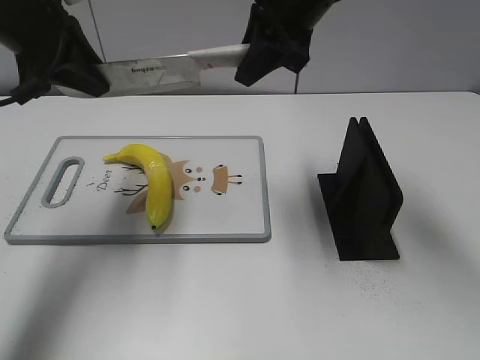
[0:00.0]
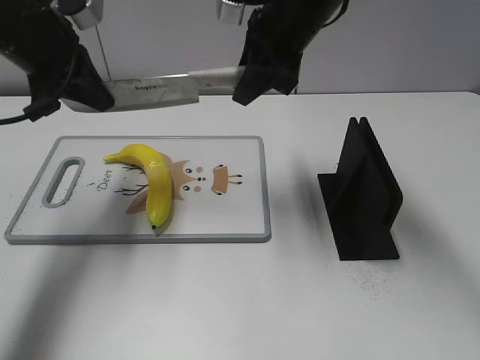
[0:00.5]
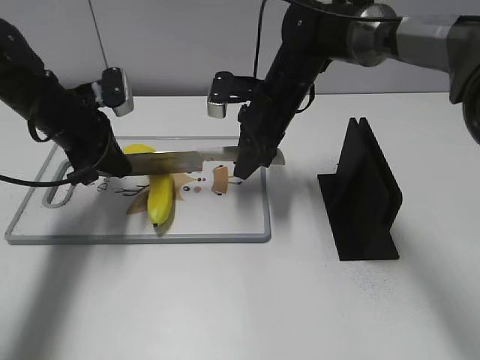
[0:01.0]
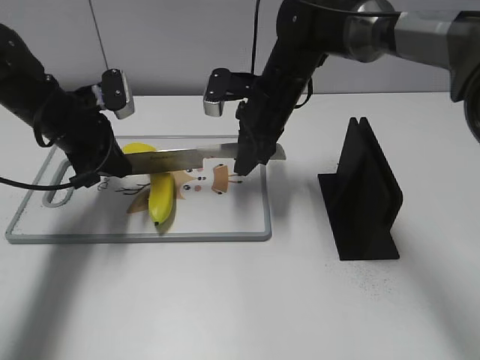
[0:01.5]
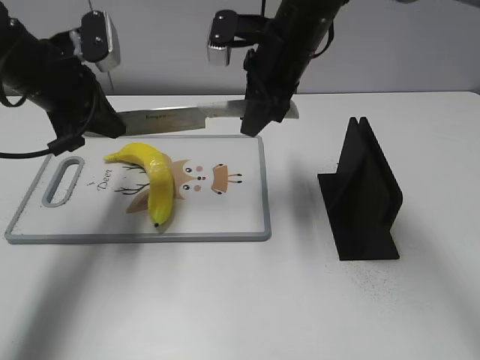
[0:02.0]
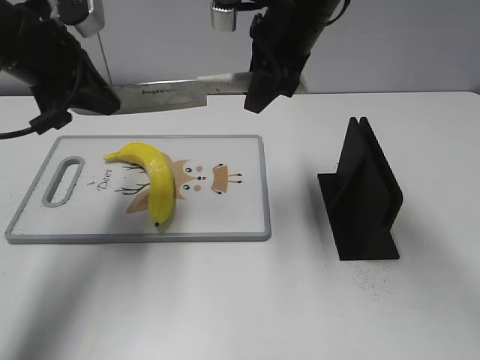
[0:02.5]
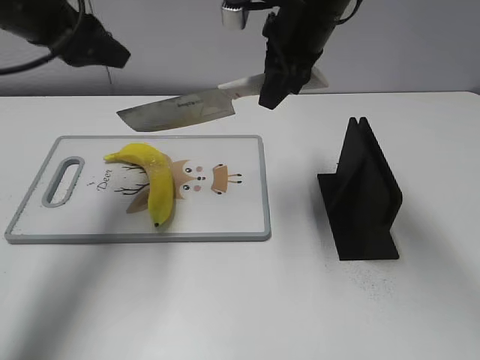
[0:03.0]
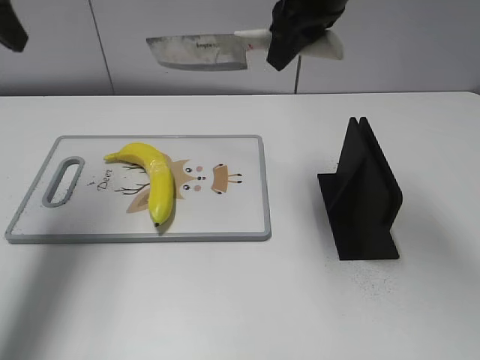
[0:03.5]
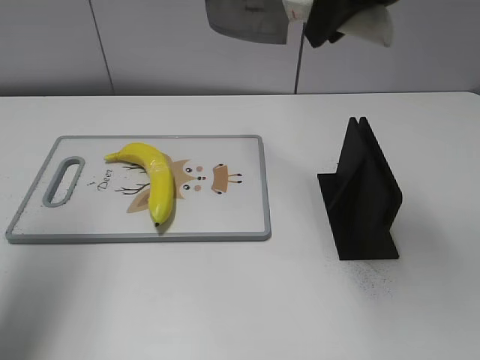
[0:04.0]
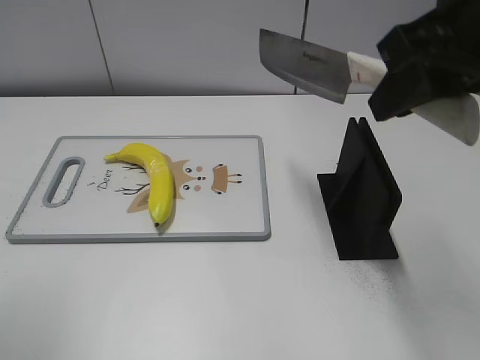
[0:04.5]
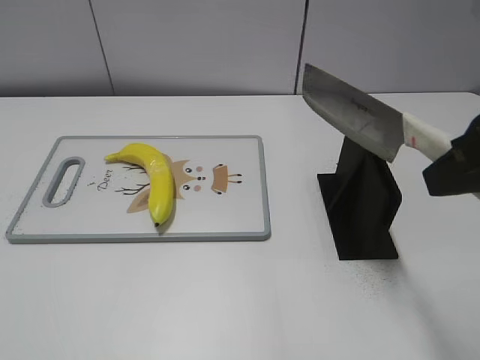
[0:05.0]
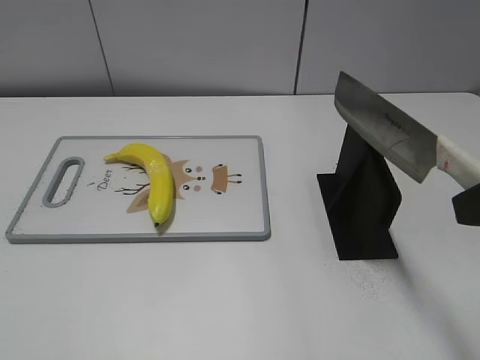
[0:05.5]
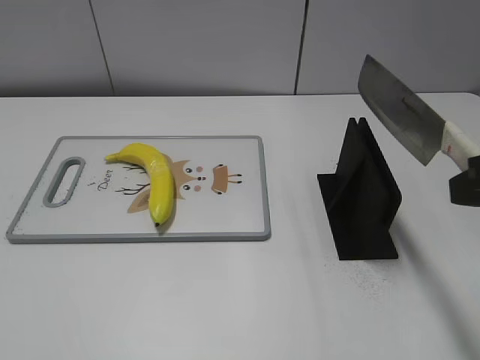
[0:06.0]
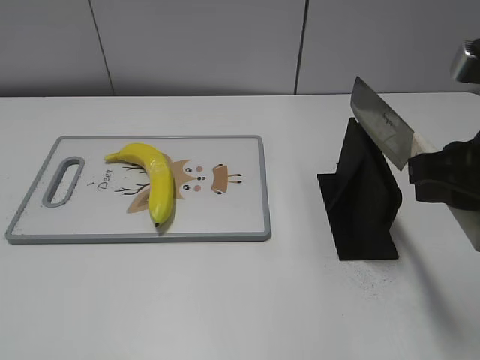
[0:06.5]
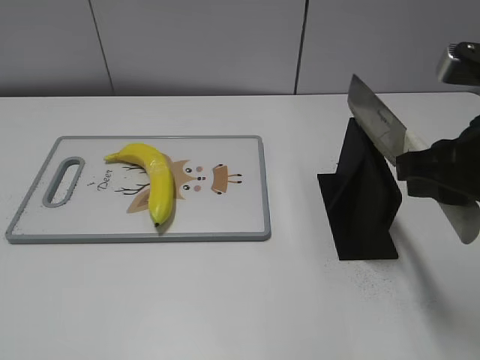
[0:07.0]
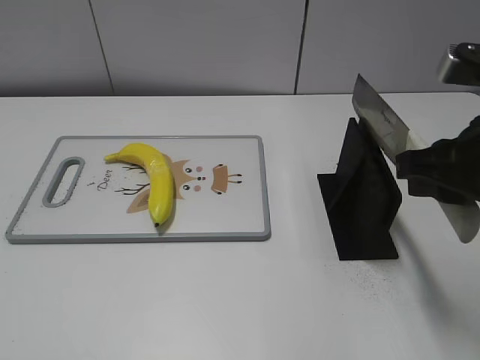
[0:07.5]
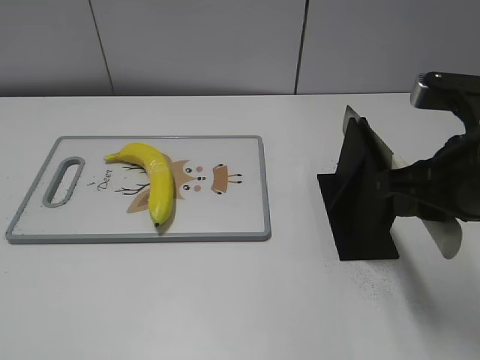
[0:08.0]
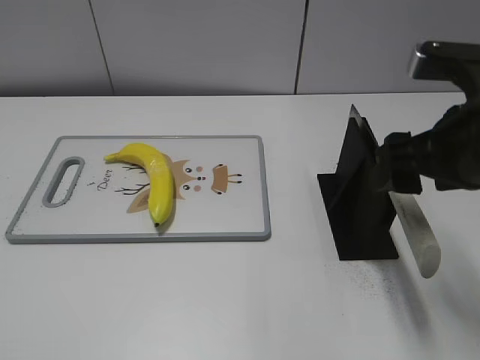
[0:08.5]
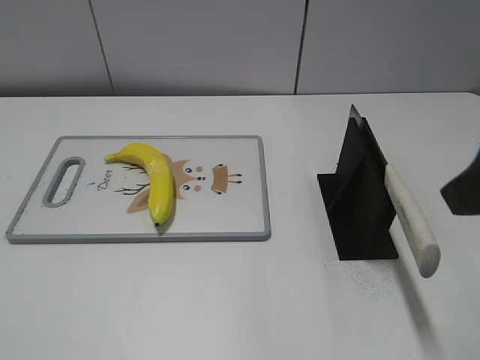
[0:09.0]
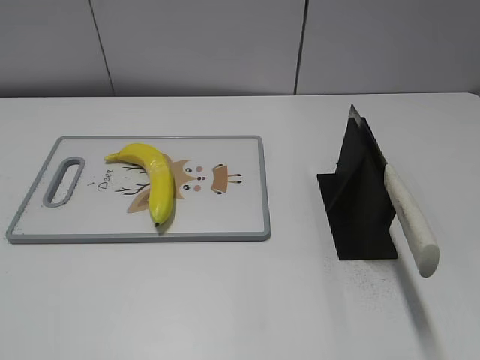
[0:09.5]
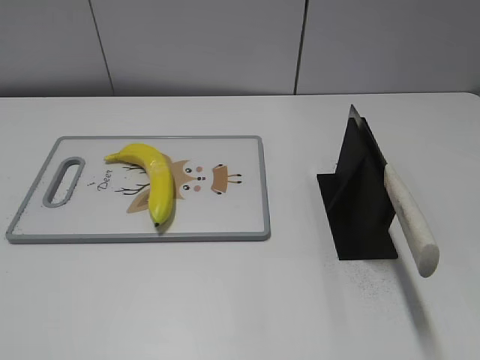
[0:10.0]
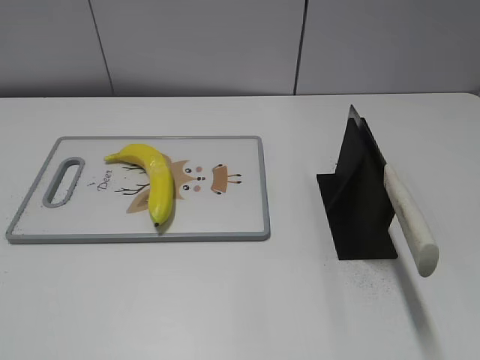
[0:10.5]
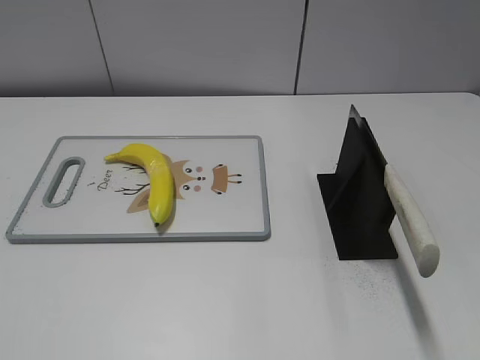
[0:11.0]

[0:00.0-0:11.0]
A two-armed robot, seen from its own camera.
Task of the whole recording: cut plastic banana.
Step, 0:02.0 to 0:03.5: Cut the banana with your right hand.
Step, 0:04.0 to 0:04.5: Lift the knife with your right hand.
Step, 0:05.0 to 0:11.0: Place the knife on the storage rack with your right hand.
0:00.0 to 0:02.0: Both grippers move downward, about 5 cm. The left gripper closes.
0:02.0 to 0:03.5: The right gripper travels upward by approximately 10 cm. Meanwhile the left gripper travels upward and to the left by roughly 15 cm, and opens.
0:03.5 to 0:05.5: The left gripper shifts approximately 35 cm backward. The right gripper heads backward and to the right, covering about 30 cm.
0:05.5 to 0:07.5: The right gripper travels forward and downward by approximately 10 cm.
0:07.5 to 0:09.0: The right gripper heads upward and backward, covering approximately 10 cm, and opens up.
0:09.0 to 0:11.0: The right gripper shifts about 20 cm backward and to the right.
